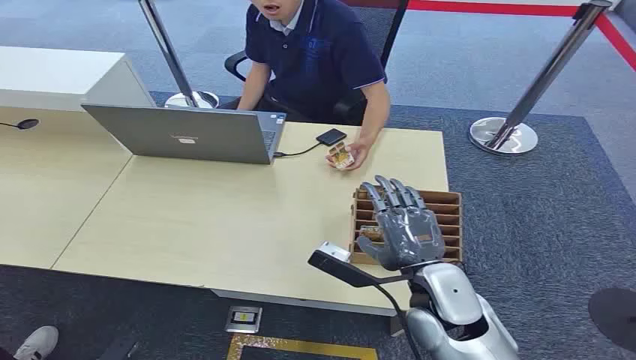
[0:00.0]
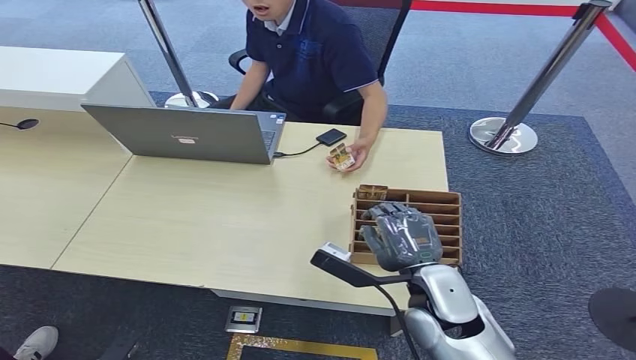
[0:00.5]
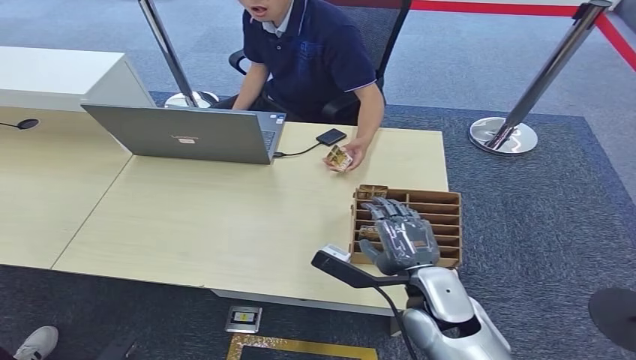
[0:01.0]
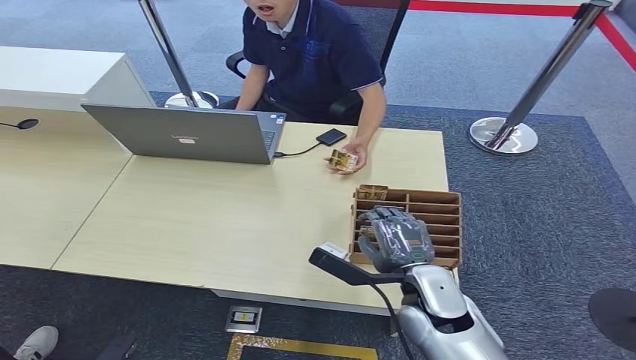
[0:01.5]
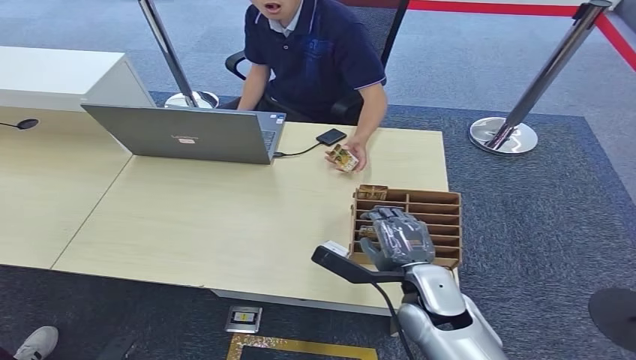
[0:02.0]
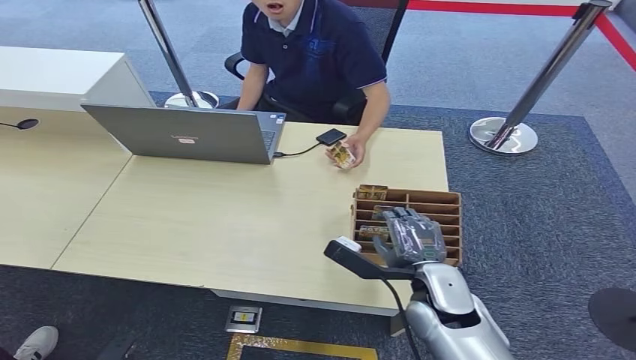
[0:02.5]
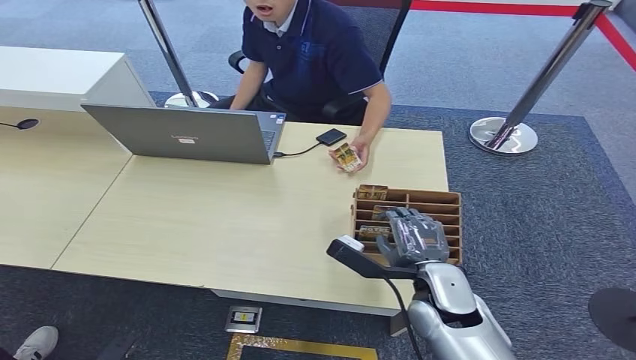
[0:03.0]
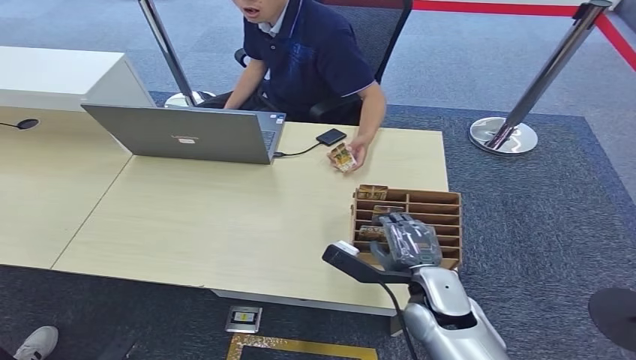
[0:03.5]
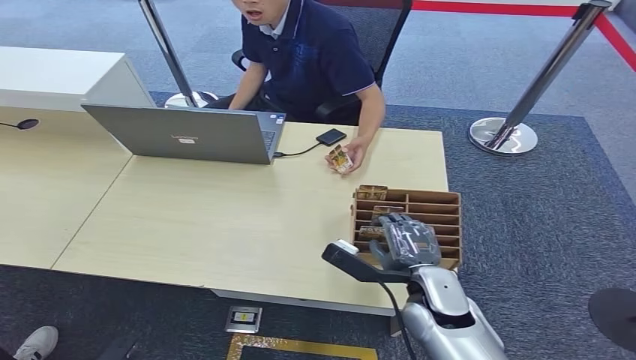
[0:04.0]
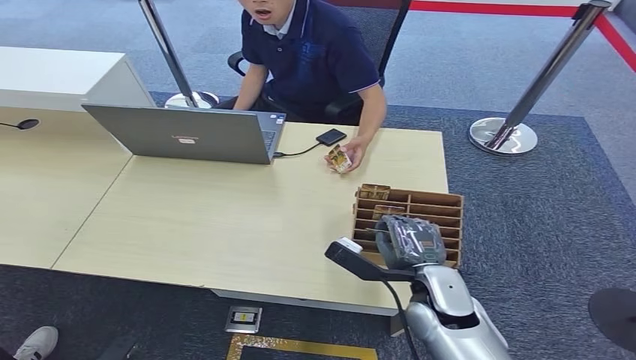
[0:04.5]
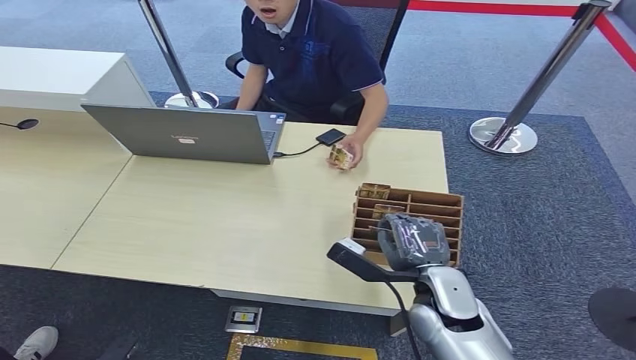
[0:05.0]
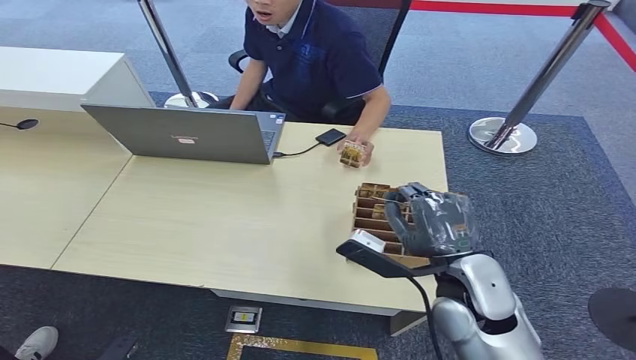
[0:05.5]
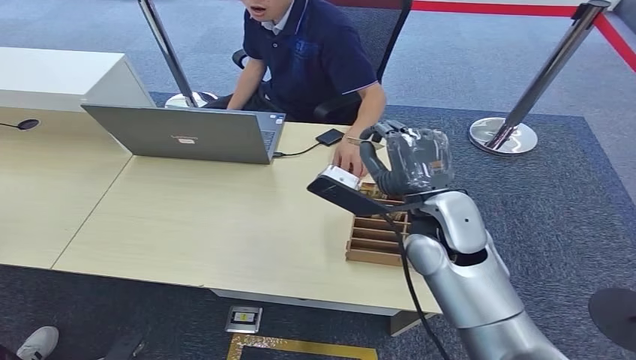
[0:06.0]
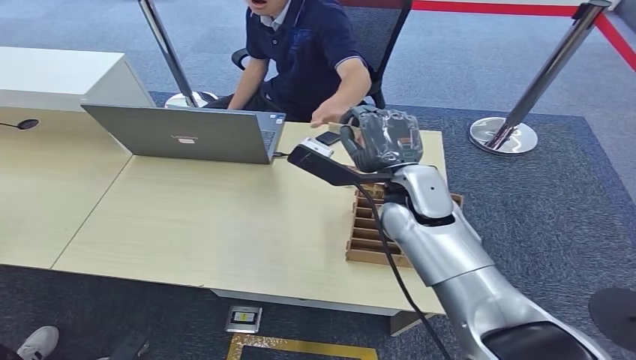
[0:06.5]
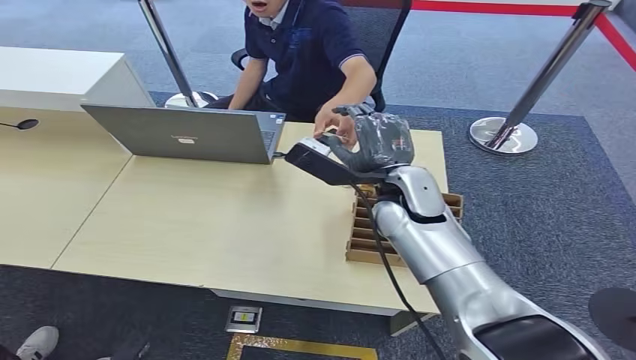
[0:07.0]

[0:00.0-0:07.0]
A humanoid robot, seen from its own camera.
Task of the whole recording: Pick up the card and hand it over to the target person.
Step, 0:00.0 to 0:06.0: Pick up the key card from the card box.
0:02.0 to 0:05.0: The hands move only a little.
0:05.0 to 0:07.0: The right hand shifts some 20 cm forward, upward and to the left.
